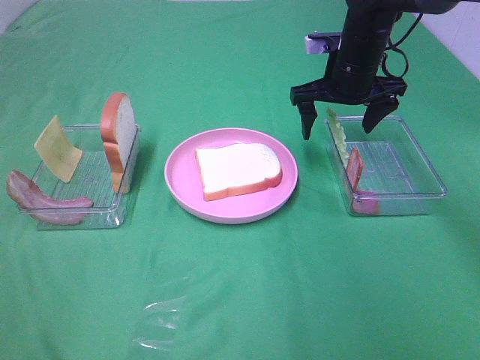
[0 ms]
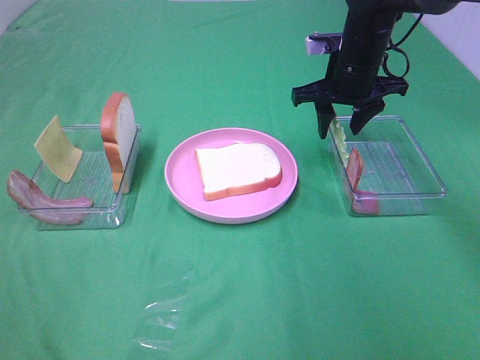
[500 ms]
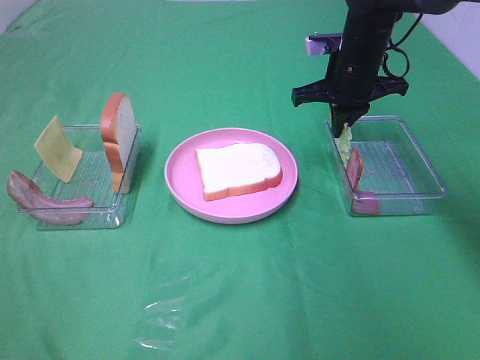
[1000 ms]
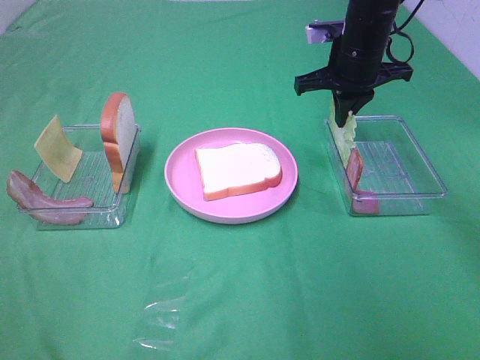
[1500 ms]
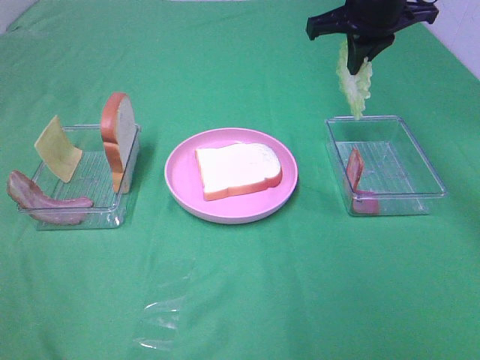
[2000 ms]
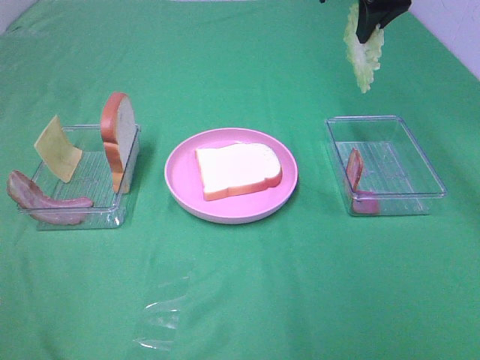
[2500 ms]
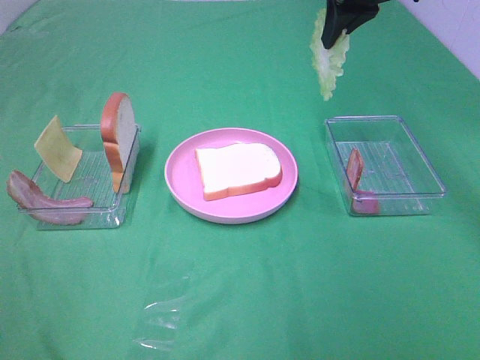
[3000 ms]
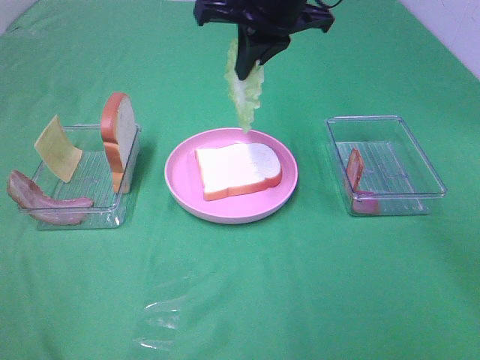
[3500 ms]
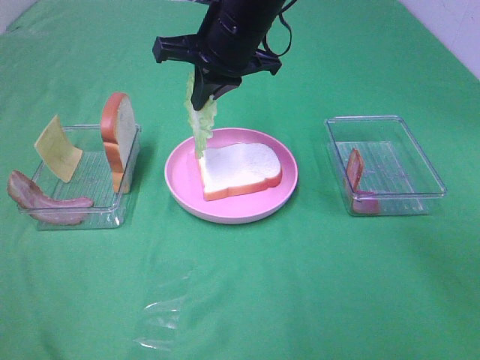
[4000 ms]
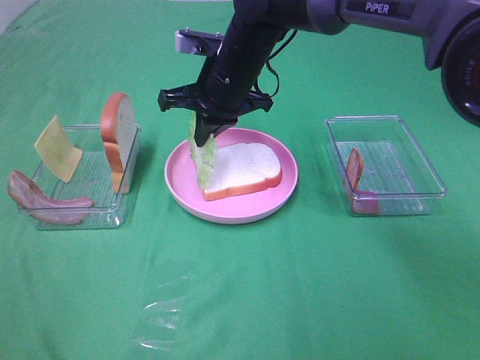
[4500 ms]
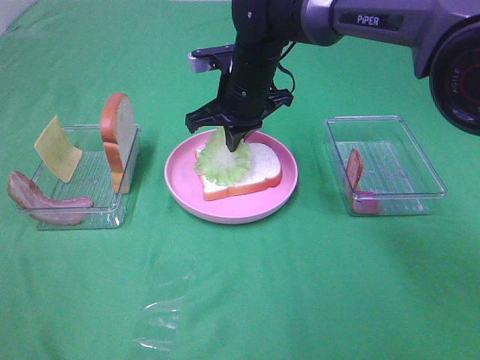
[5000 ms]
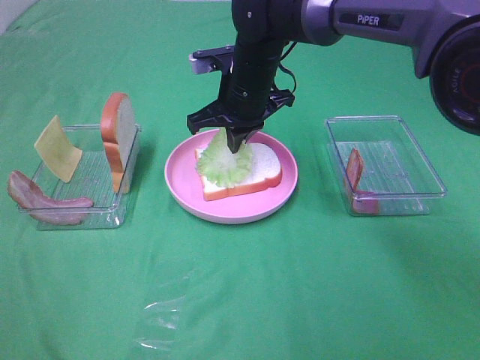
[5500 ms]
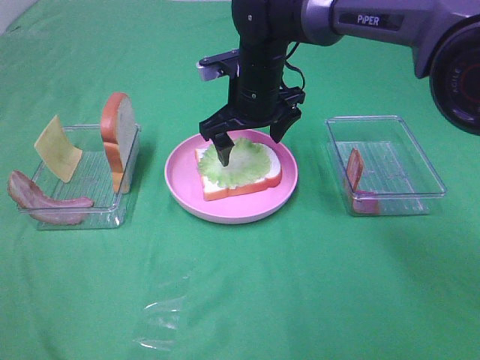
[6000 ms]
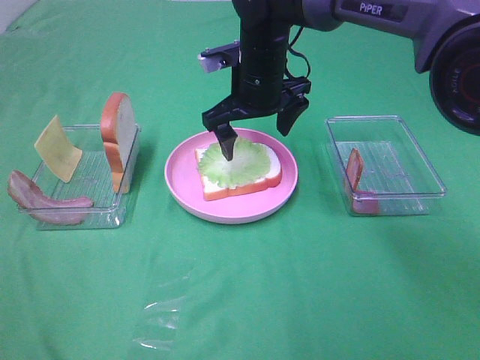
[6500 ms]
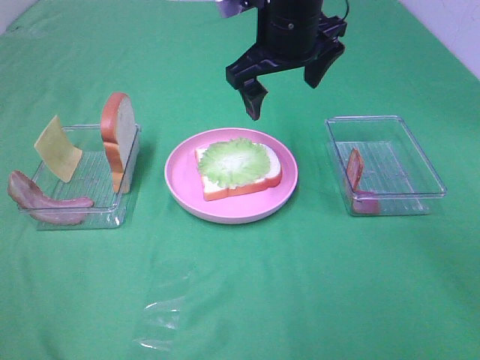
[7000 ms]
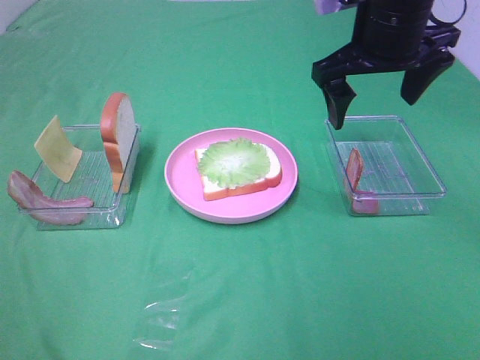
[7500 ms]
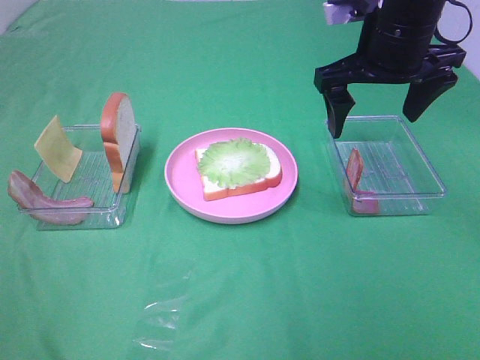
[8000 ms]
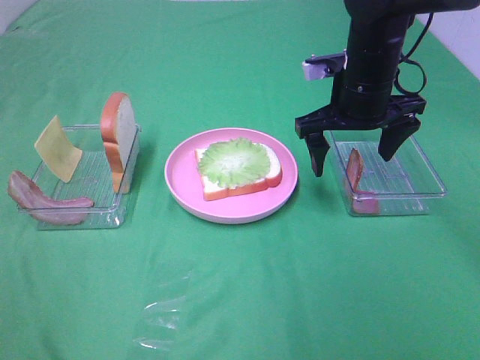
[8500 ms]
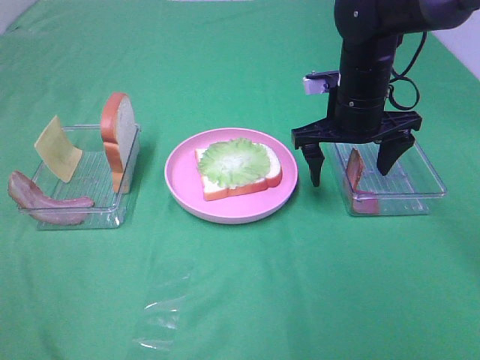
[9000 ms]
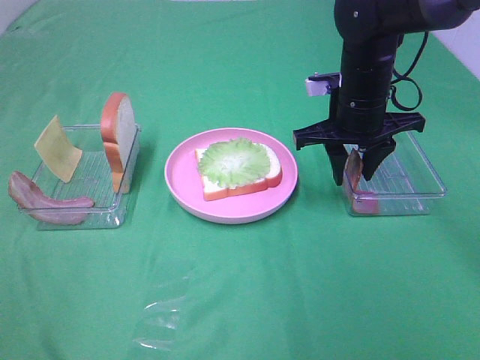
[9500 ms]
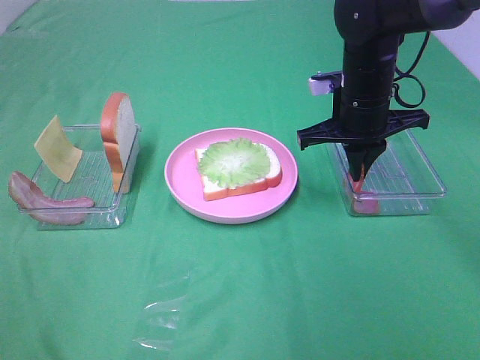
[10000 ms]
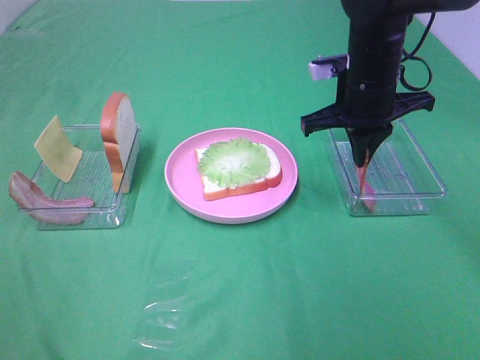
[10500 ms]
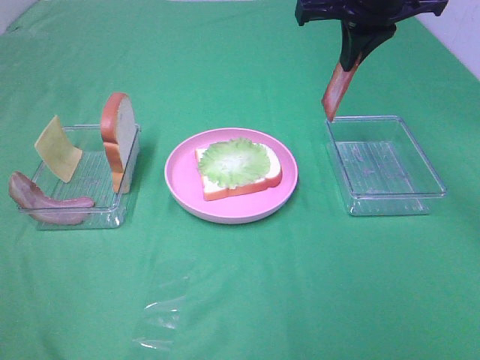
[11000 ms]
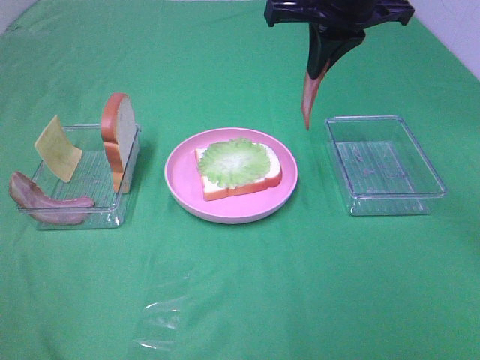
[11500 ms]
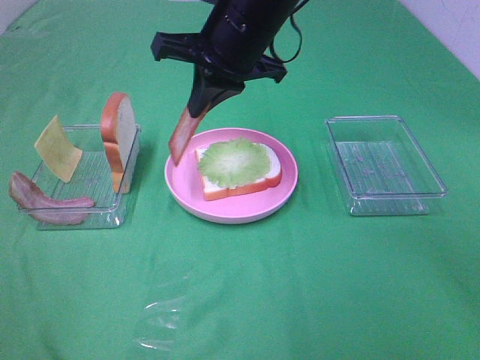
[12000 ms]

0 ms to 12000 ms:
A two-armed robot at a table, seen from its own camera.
Task of the whole recording: Make sandwiches.
Step, 1500 ms to 6000 ms: Right hand:place the lettuce slice on the bread slice.
Step, 6500 ms to 9500 ms: Right hand:grab the bacon.
0 ms to 2000 ms: The right gripper travels upward by about 10 cm, and closes up.
2000 ms to 4000 ms: The right gripper shifts approximately 15 cm to the left.
4000 ms to 6000 ms: The right gripper is displaced downward by some 10 cm, and opens.
6000 ms to 8000 ms: The right gripper is displaced to the right, upward and backward by approximately 20 cm.
8000 ms to 10000 ms: The right gripper heads downward, covering about 10 cm, and closes up.
10000 ms to 12000 ms: The right gripper goes some 15 cm to the left and upward.

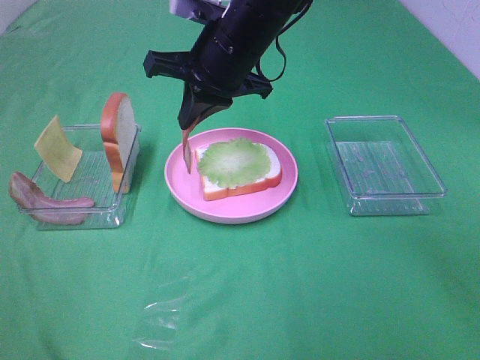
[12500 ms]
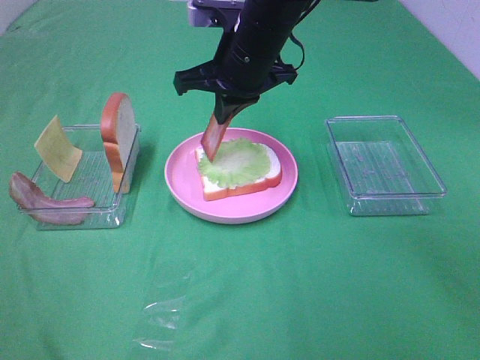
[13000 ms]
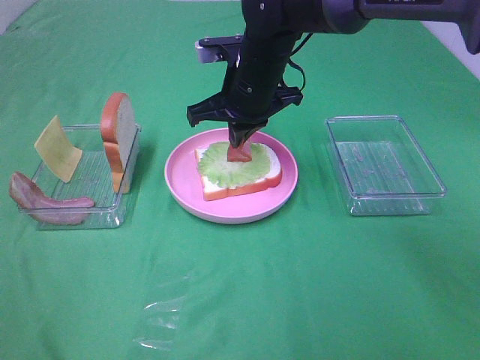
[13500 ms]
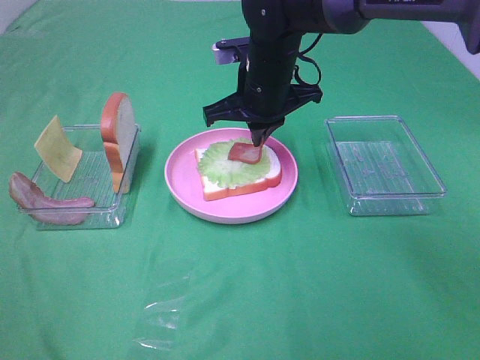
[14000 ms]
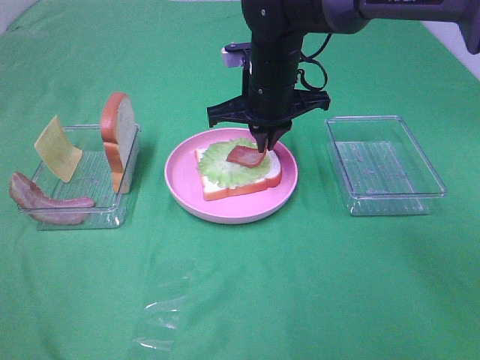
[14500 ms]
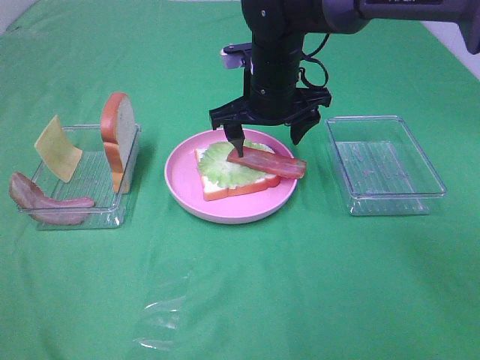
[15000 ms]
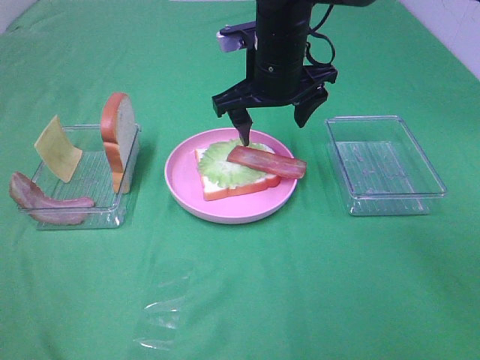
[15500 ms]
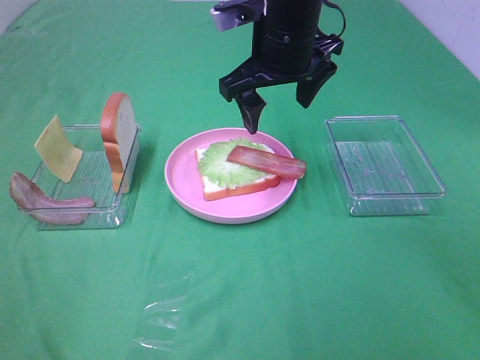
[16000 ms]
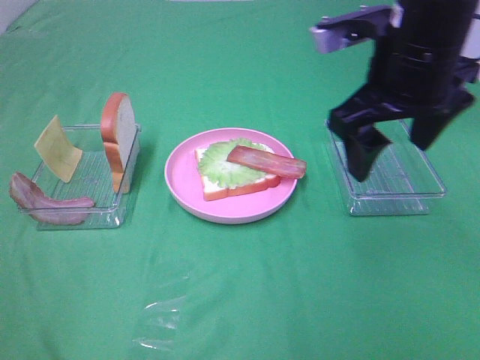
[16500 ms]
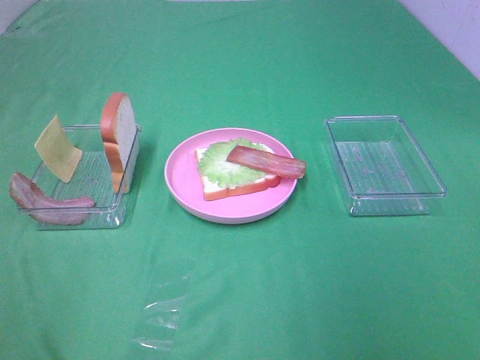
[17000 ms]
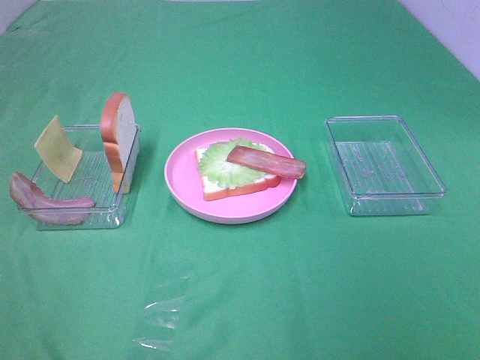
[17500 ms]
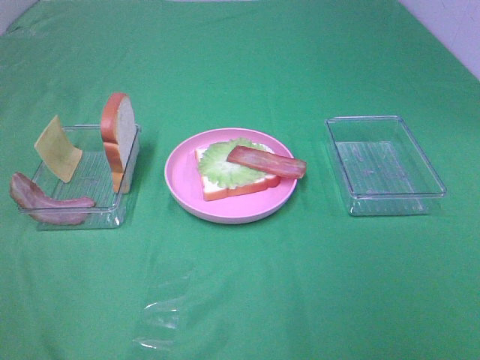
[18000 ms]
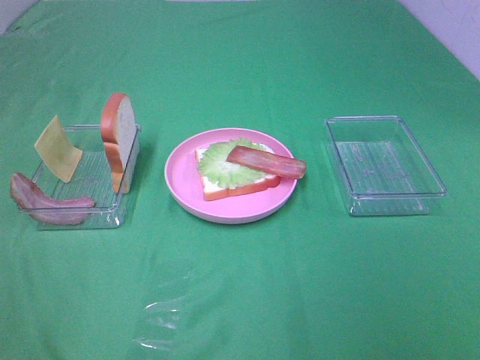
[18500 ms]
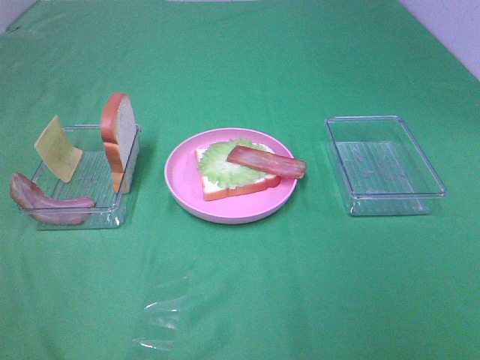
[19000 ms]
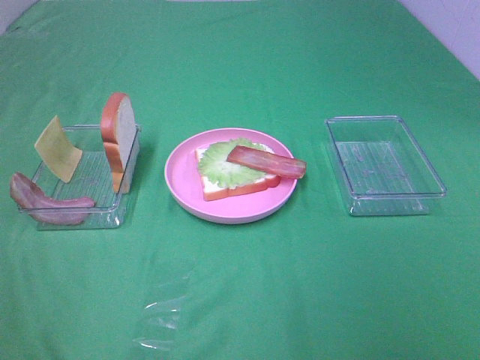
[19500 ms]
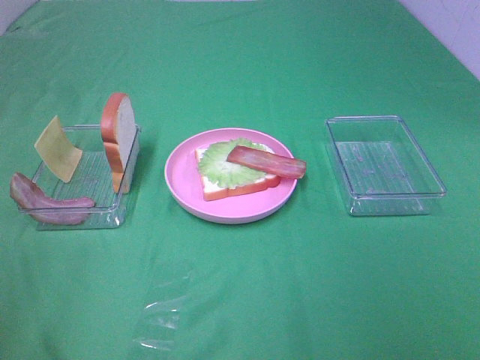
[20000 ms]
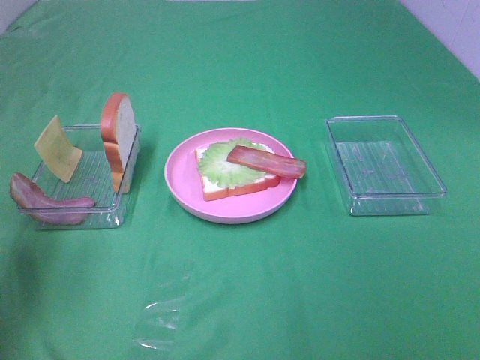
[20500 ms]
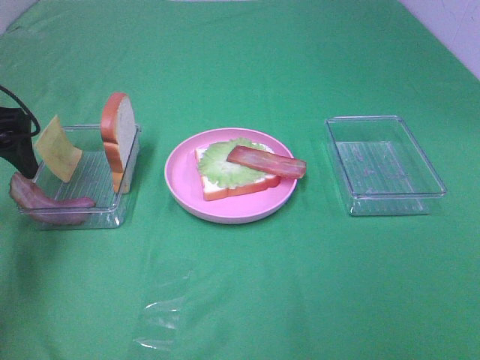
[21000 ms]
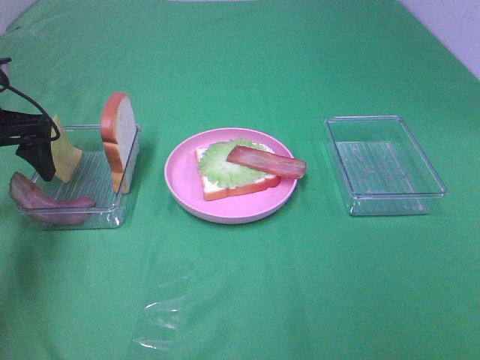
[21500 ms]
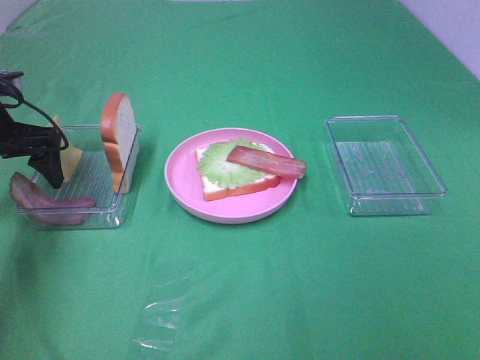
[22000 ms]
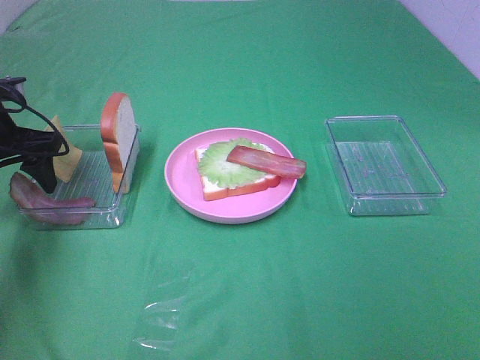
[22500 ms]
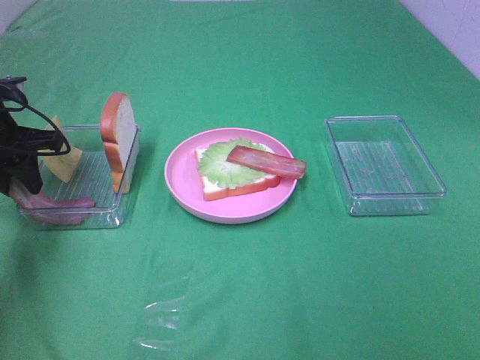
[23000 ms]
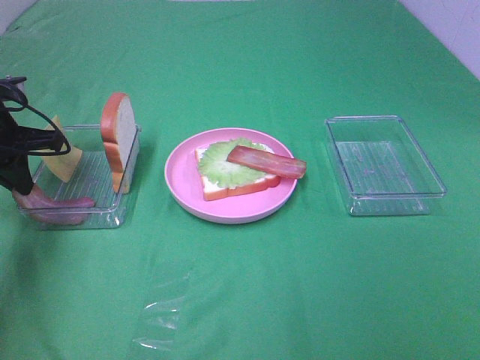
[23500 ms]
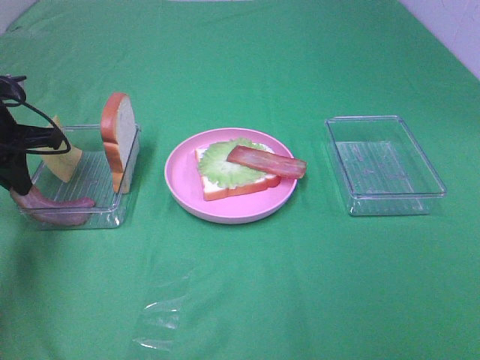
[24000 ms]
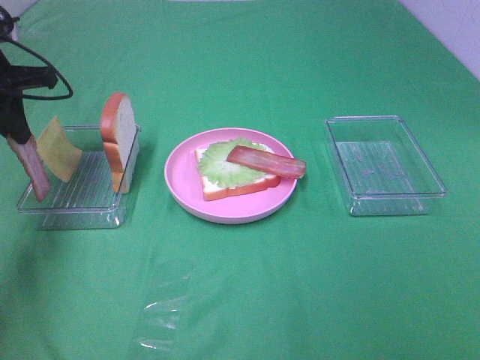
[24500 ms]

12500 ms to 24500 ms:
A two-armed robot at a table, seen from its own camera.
Task of the whole recording: Make sandwiches.
Step, 12500 ms to 15000 ms: Right hand:place bacon on lettuce slice.
Step, 15500 ms to 23500 ms: Left hand:grab the bacon.
12500 ms to 14500 ms: The right gripper heads downward, covering roughly 5 cm.
14500 ms to 16500 ms: The right gripper moves backward, to the right and upward, approximately 20 cm, and opens its fingers.
16500 ms to 18500 ms: The right gripper goes some 30 cm backward and to the right.
18500 ms to 20500 ms: The left gripper shifts some 20 cm forward.
20500 ms to 22500 ms: The left gripper shifts about 20 cm forward and downward.
22500 ms to 24500 ms: The left gripper travels upward by approximately 5 cm, and closes.

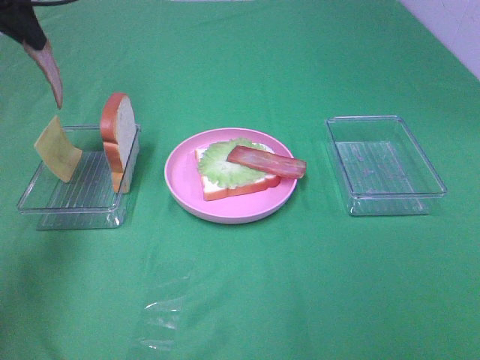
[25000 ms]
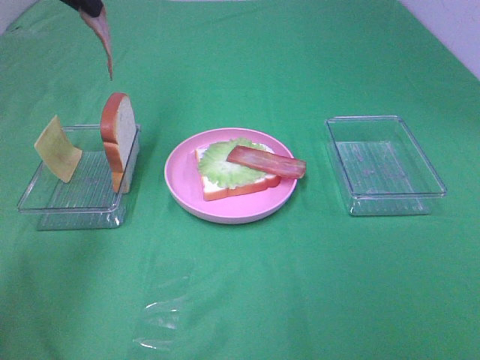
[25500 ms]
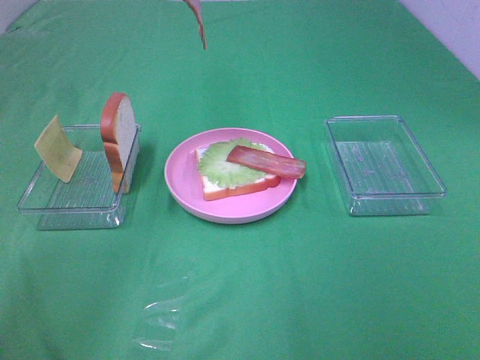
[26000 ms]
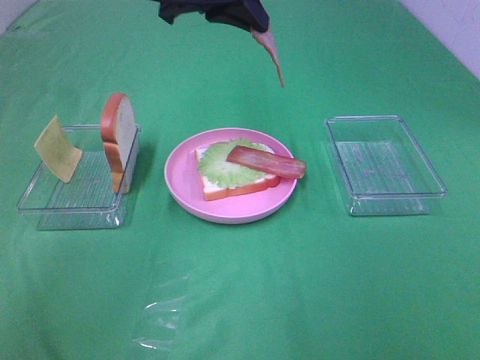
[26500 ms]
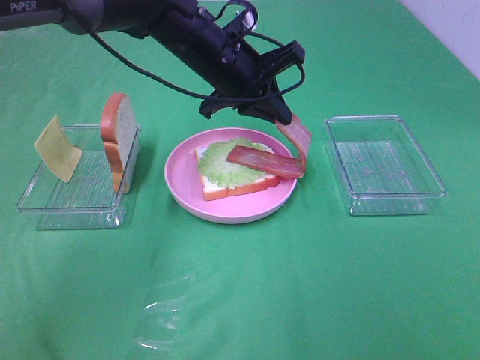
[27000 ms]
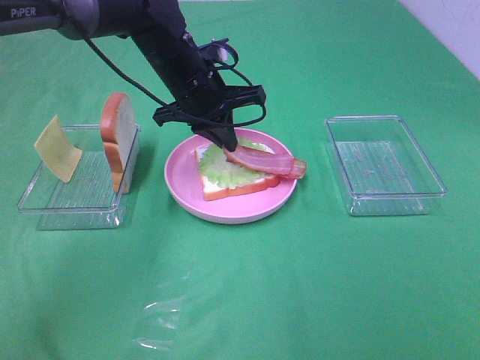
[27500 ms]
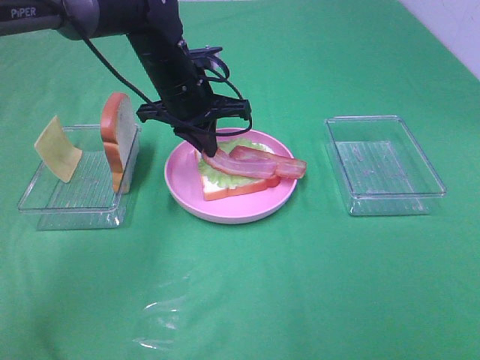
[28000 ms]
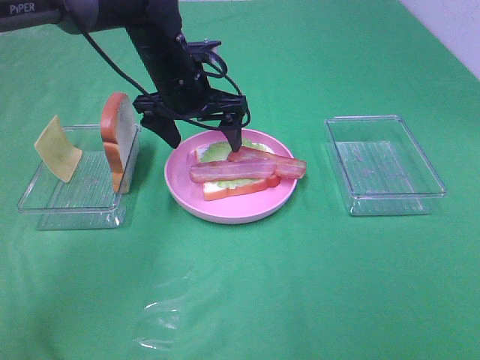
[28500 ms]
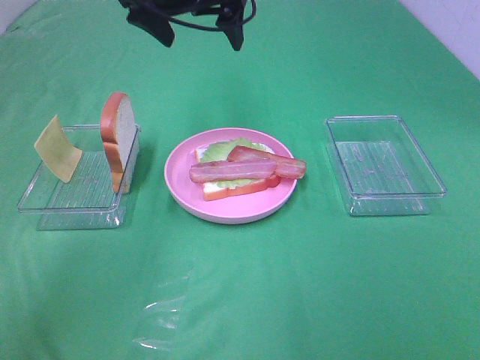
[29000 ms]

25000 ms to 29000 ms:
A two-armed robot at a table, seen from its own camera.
Task of the whole recording: Make sandwiches.
Step, 25000 ms to 28000 ms: Left hand:place bacon on bacon.
25000 ms to 27000 ms: The left gripper goes roughly 25 cm to the right and downward.
27000 ms to 29000 ms: The left gripper moves upward and to the left, roughly 10 cm, and opens up.
